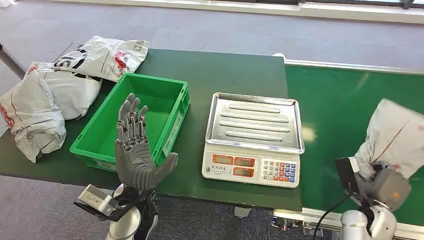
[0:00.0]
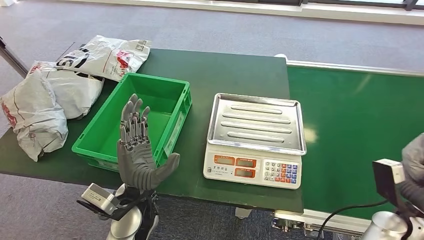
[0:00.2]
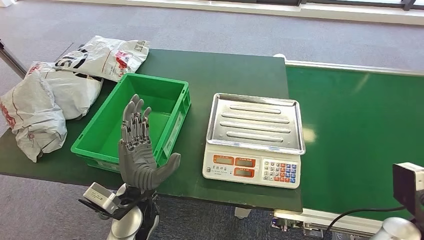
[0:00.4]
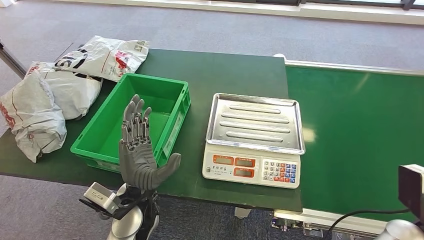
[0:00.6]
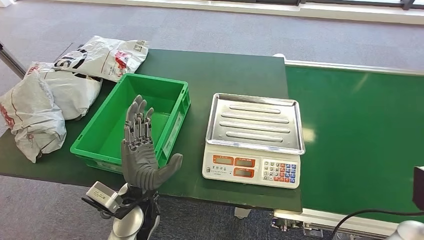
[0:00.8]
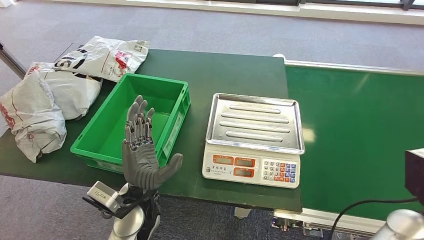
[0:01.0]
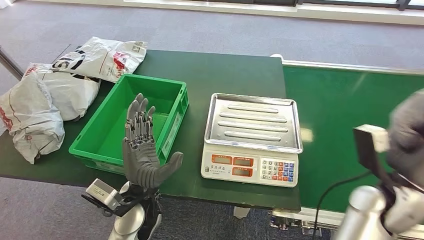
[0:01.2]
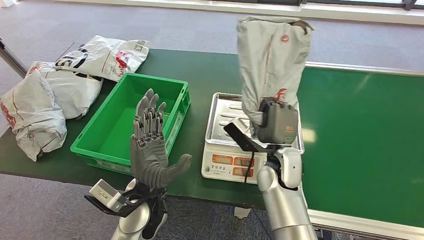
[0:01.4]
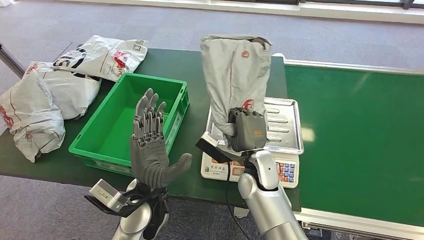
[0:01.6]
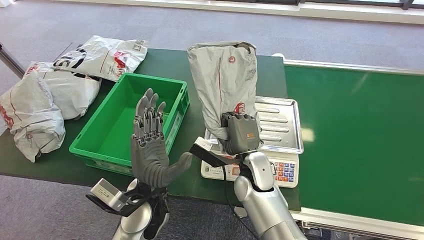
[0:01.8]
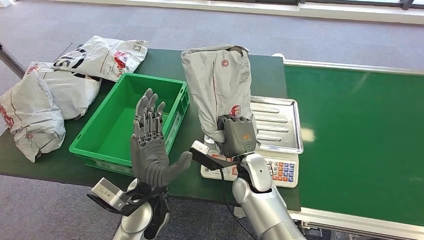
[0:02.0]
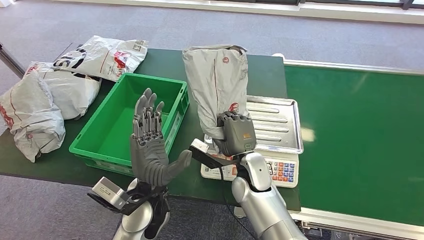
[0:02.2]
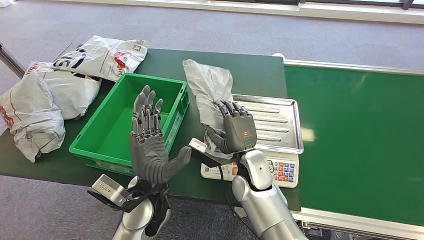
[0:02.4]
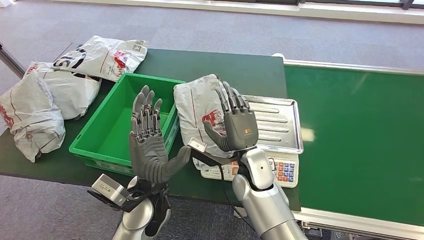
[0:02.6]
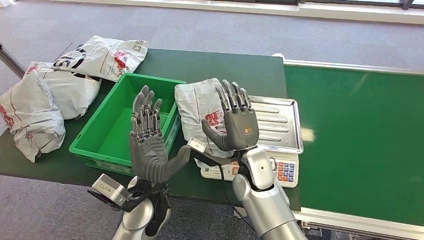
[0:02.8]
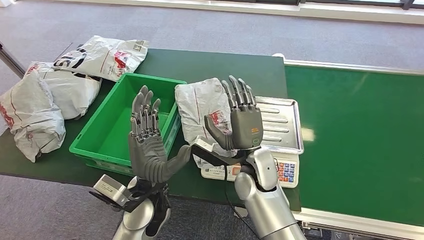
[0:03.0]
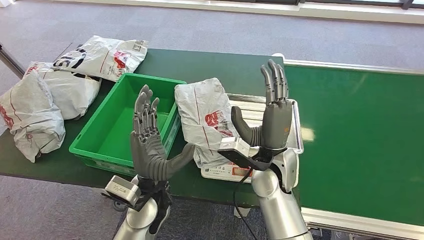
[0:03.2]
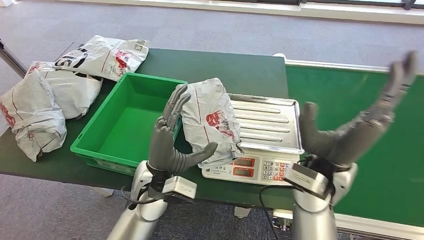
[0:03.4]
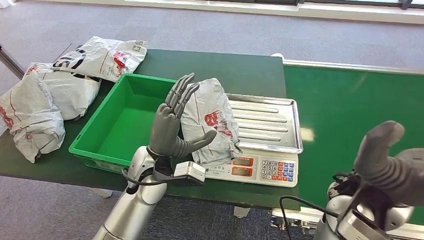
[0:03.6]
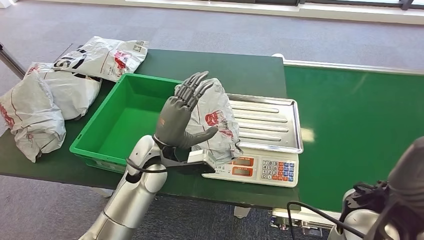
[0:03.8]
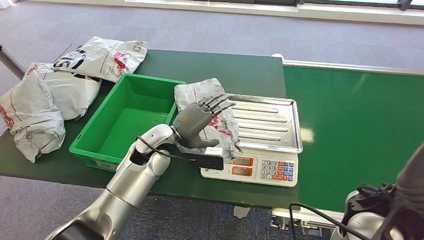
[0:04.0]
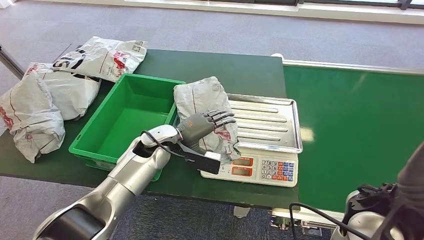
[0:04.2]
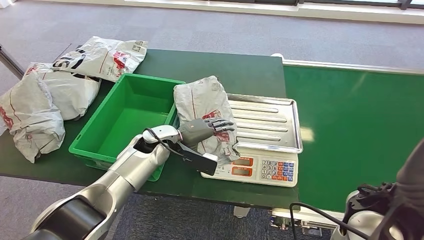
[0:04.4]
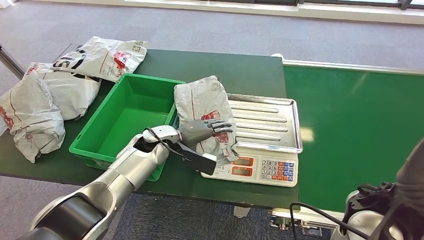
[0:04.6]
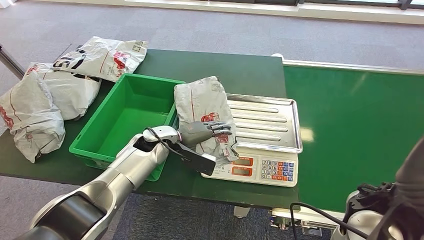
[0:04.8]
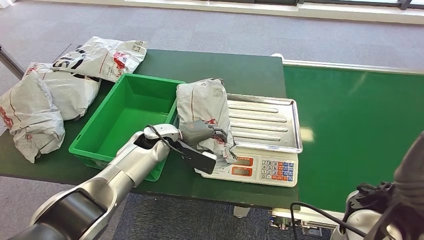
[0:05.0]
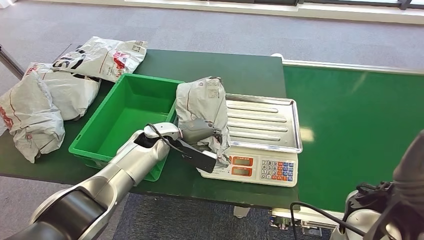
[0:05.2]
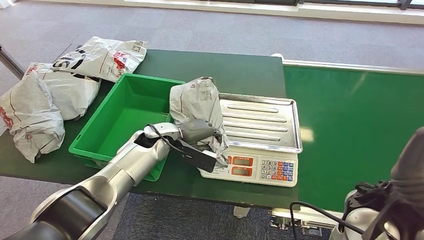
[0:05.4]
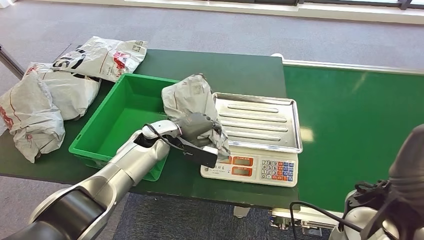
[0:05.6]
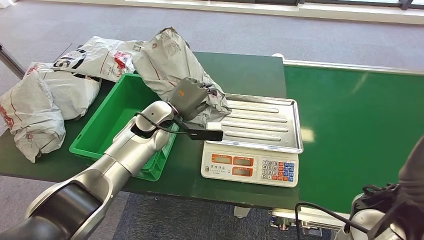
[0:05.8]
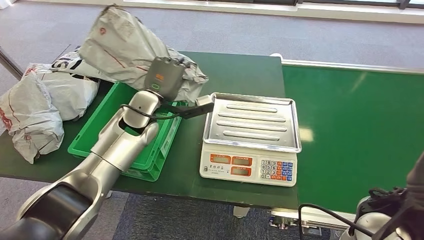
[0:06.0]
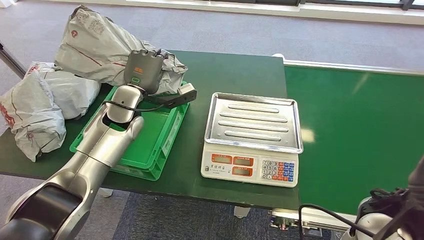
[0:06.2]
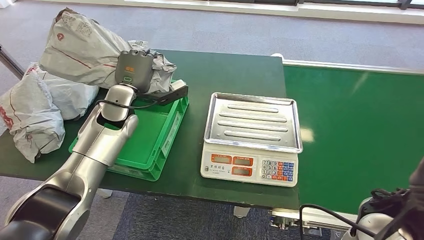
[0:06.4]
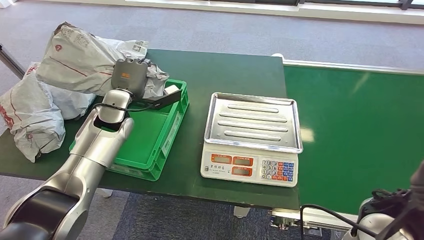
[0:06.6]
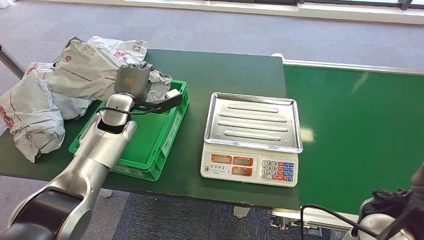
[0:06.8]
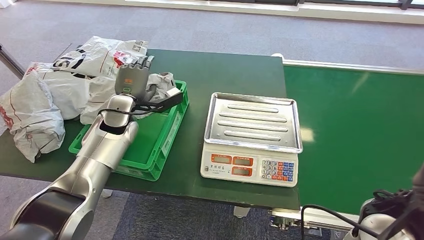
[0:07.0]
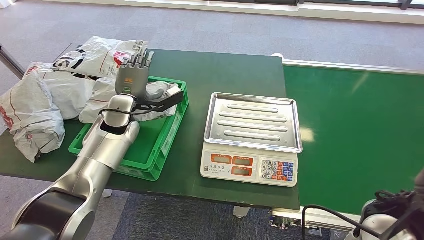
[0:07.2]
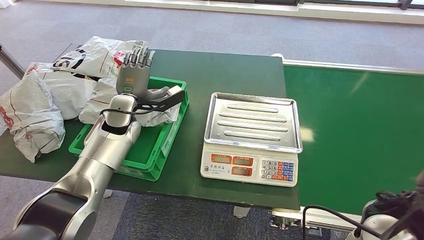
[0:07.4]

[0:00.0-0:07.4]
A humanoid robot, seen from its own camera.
Step, 0:00.0 to 0:00.2: Pick up the package from the conveyor belt.
Step, 0:01.0 to 0:02.8: Place the package onto the inbound machine.
Step, 0:04.8 to 0:06.2: Pick up the package from the inbound machine.
Step, 0:07.0 to 0:07.4: Place the package into the parcel locker.
0:06.0 to 0:07.4: The left hand goes some 5 cm to the left.
